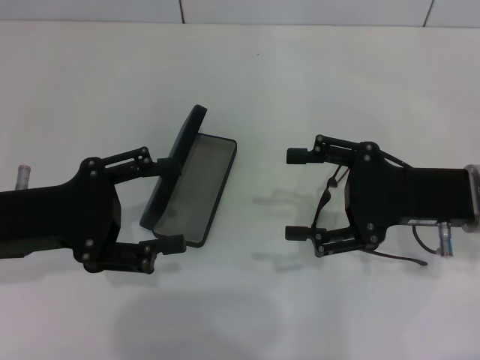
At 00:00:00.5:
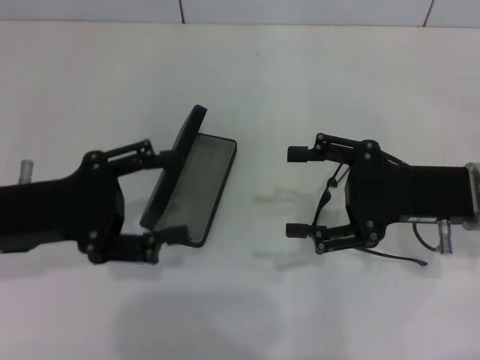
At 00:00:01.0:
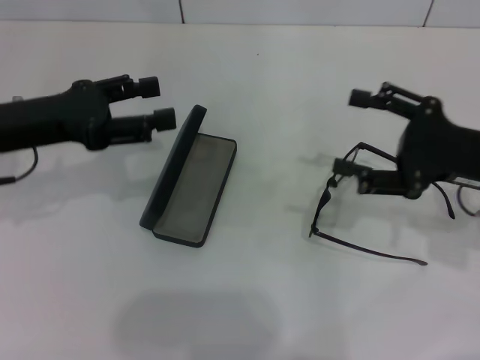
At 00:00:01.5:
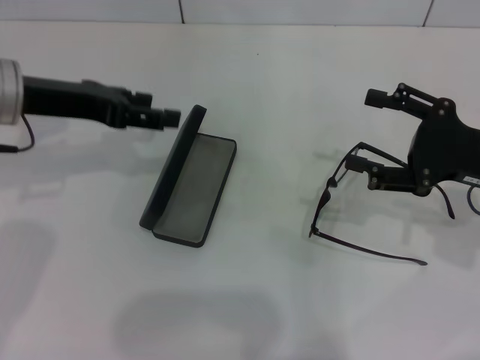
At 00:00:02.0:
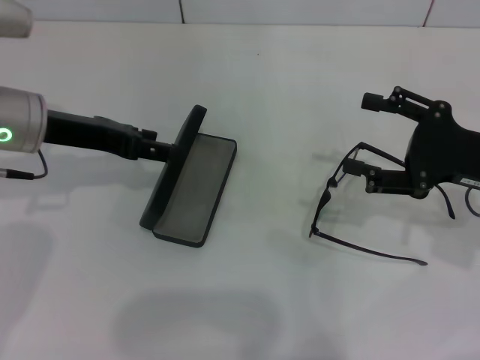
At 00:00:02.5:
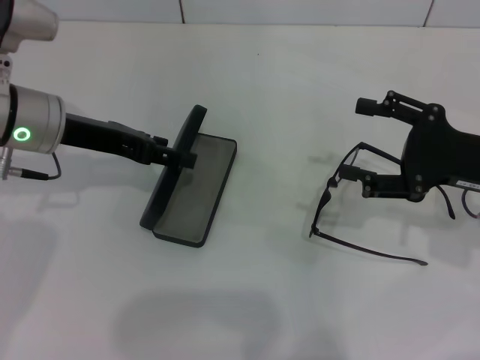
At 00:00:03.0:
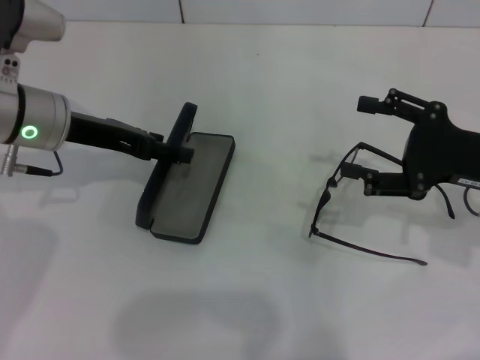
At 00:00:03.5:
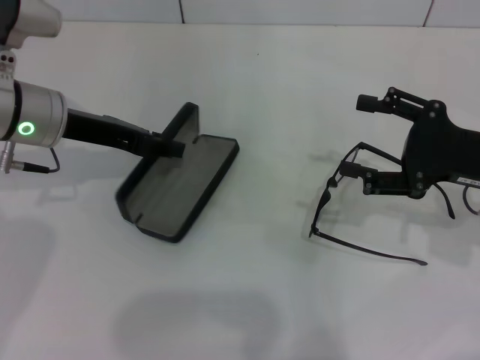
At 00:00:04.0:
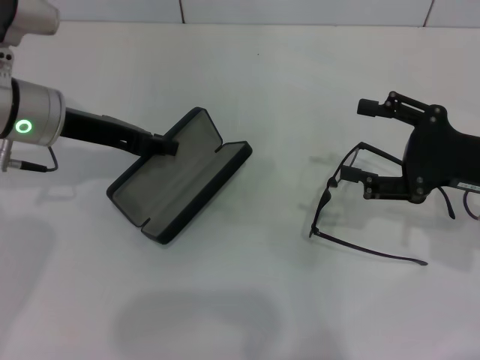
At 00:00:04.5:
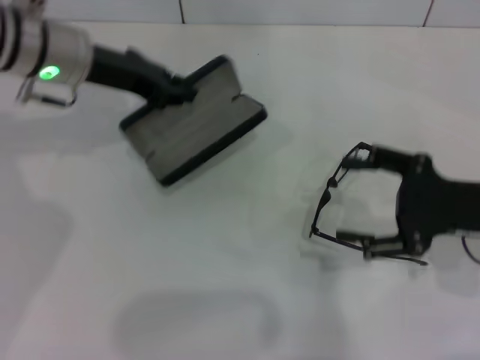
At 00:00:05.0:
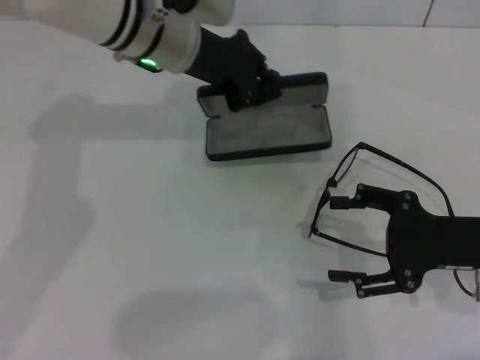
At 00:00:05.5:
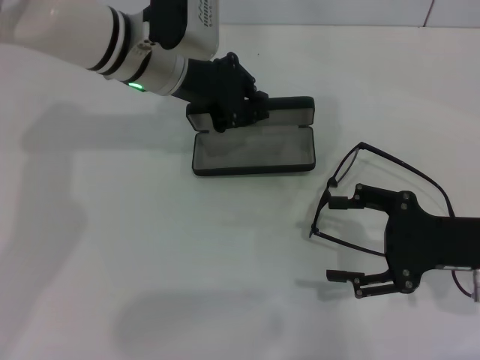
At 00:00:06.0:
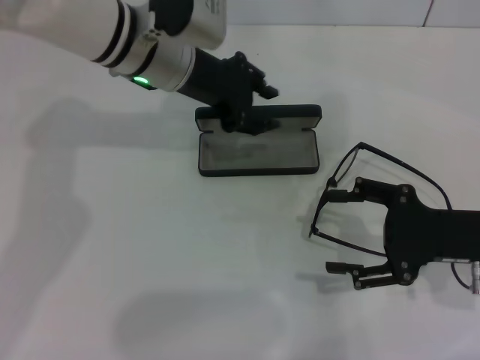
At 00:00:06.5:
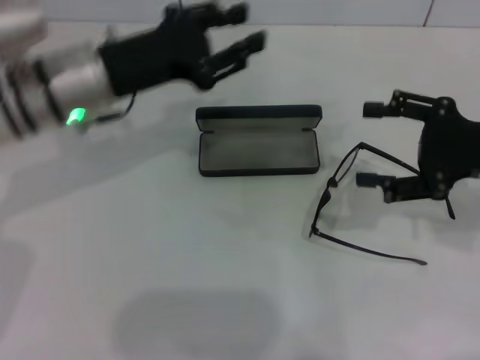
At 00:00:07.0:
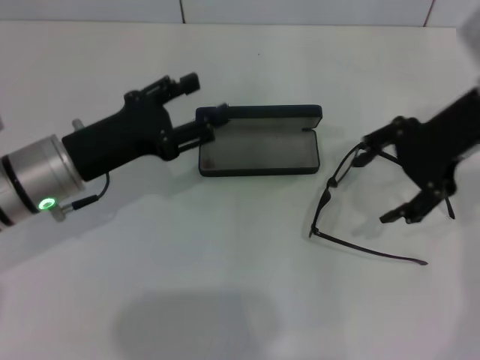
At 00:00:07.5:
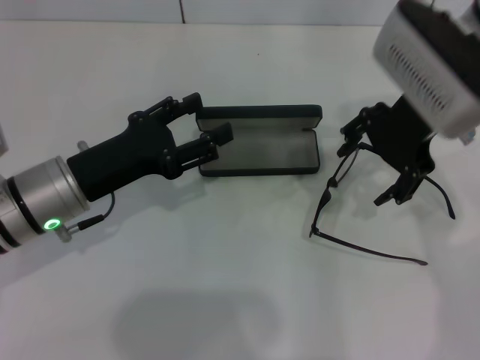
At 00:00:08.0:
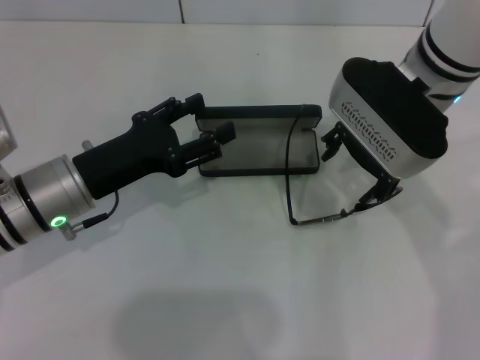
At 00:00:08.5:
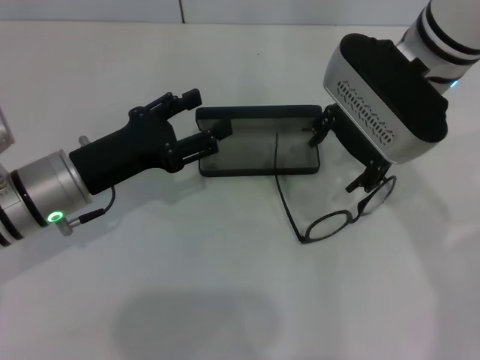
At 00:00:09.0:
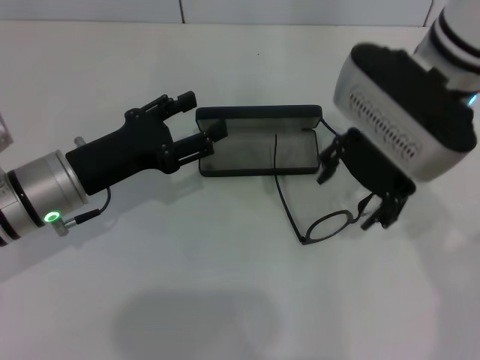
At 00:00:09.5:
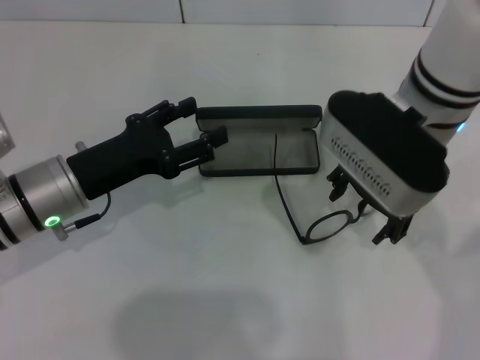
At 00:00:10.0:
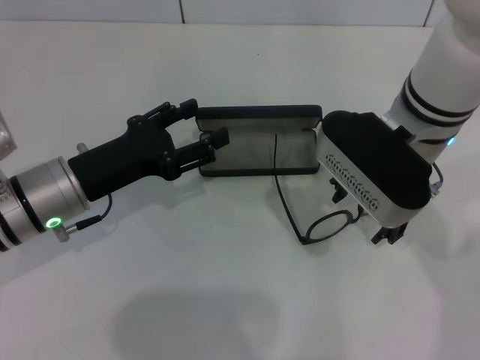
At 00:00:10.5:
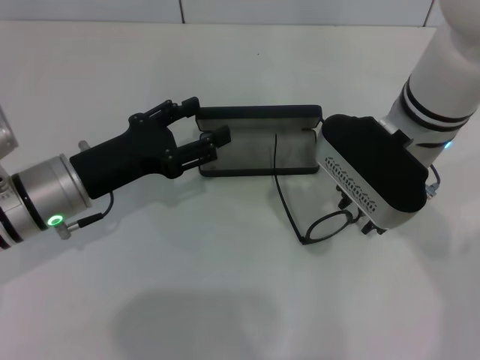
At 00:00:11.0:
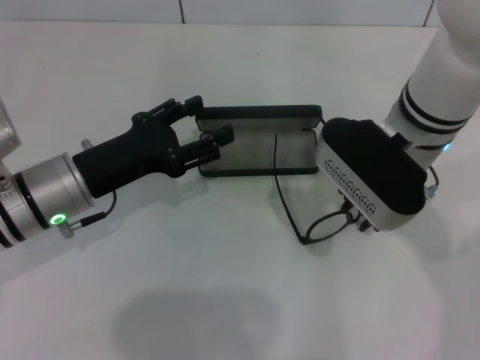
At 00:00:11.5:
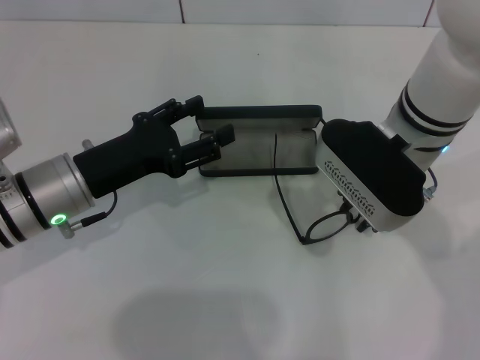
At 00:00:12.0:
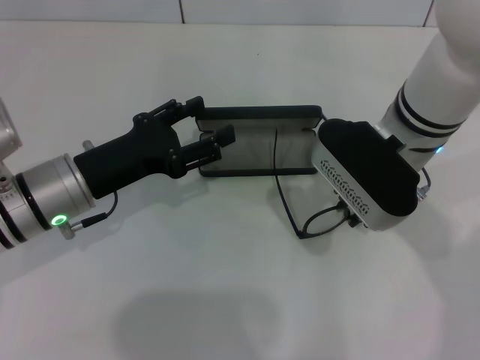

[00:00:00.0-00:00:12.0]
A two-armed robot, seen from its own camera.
Step, 00:00:00.0 to 00:00:03.5: Grab the glasses case with your left hand.
Step, 00:00:04.0 to 00:00:05.5: Place the glasses case in the center of the table with your left hand.
00:00:00.0 to 00:00:02.0: The left gripper is displaced forward by approximately 10 cm; the right gripper is displaced to the right by about 5 cm.
00:00:02.0 to 00:00:04.0: The left gripper closes its fingers.
00:00:04.0 to 00:00:06.0: The left gripper goes about 10 cm to the right.
00:00:06.0 to 00:00:08.0: The left gripper moves backward, to the left and downward, some 20 cm, and opens. The right gripper goes some 20 cm to the left, forward and upward.
00:00:08.0 to 00:00:10.0: The grippers make only small movements.
00:00:10.0 to 00:00:12.0: The right gripper closes its fingers.

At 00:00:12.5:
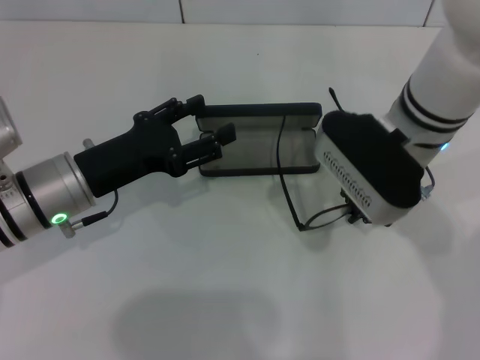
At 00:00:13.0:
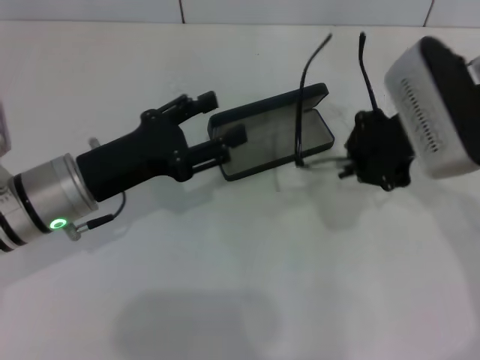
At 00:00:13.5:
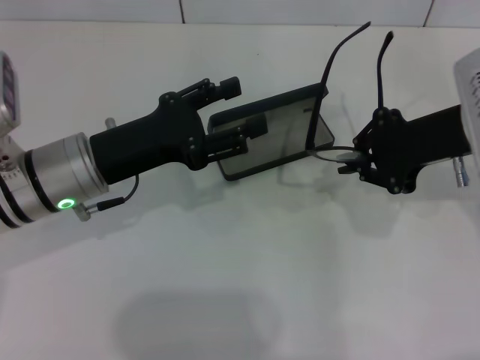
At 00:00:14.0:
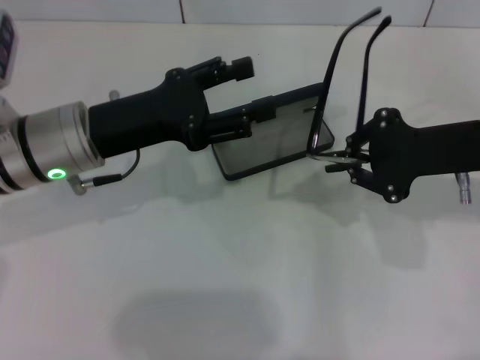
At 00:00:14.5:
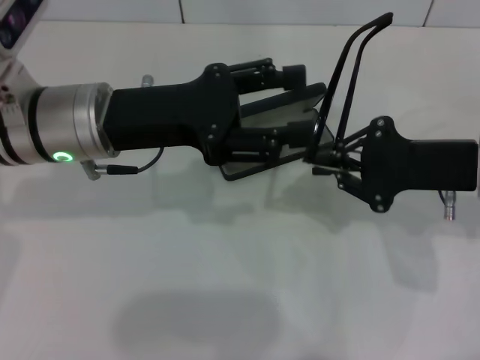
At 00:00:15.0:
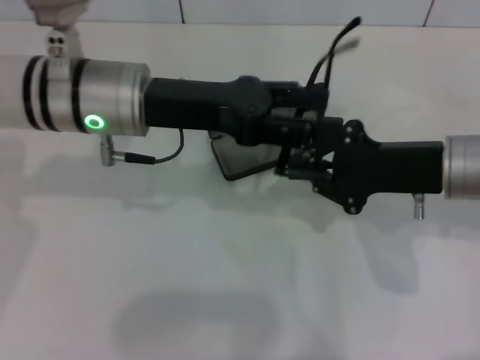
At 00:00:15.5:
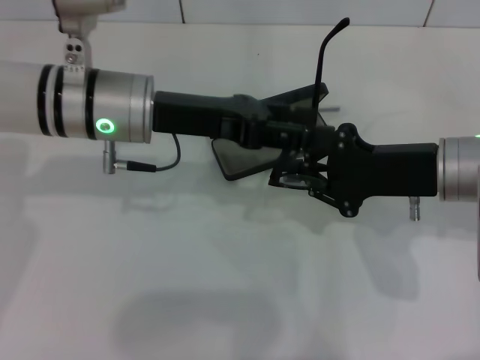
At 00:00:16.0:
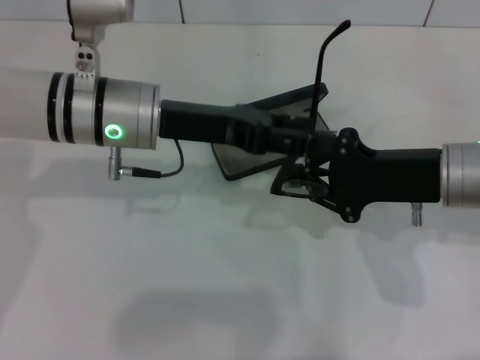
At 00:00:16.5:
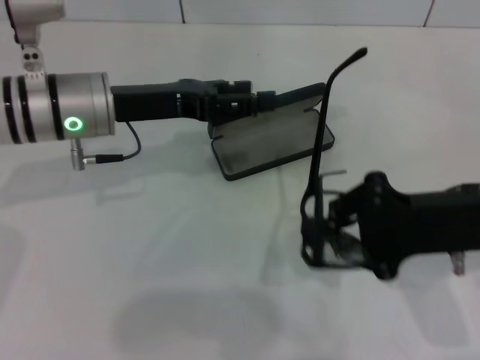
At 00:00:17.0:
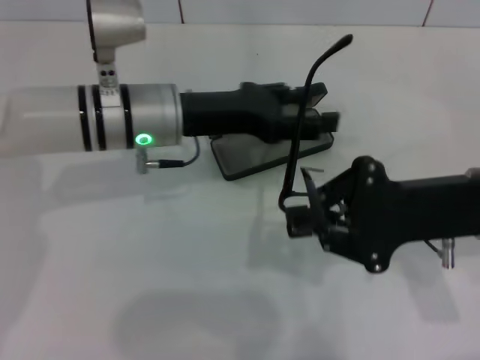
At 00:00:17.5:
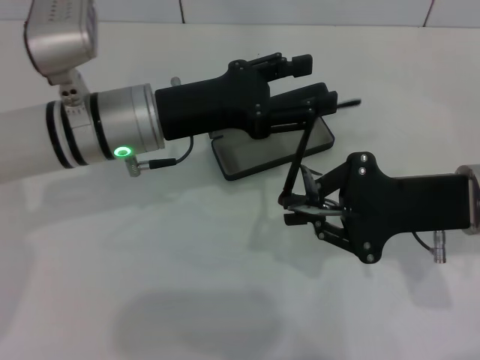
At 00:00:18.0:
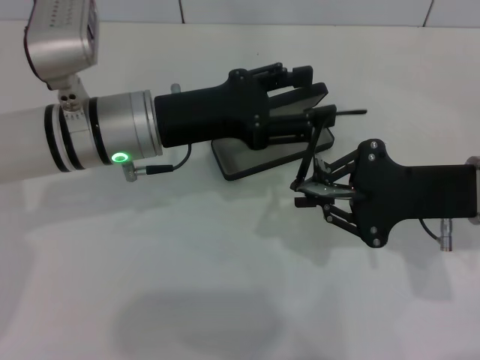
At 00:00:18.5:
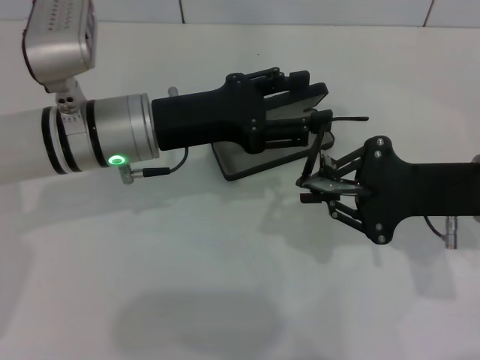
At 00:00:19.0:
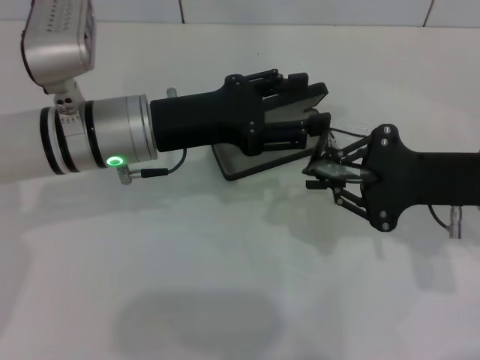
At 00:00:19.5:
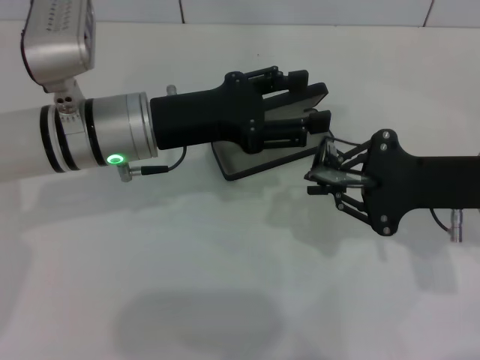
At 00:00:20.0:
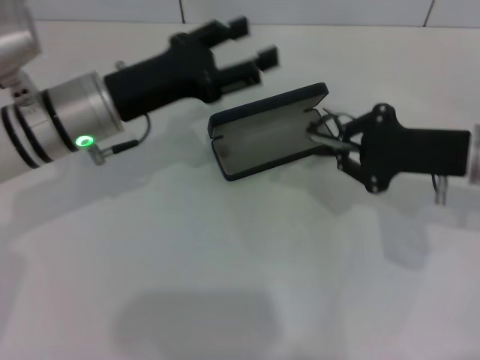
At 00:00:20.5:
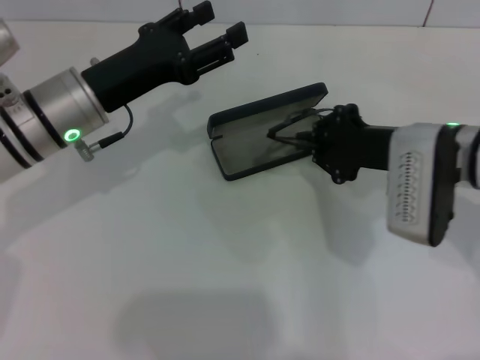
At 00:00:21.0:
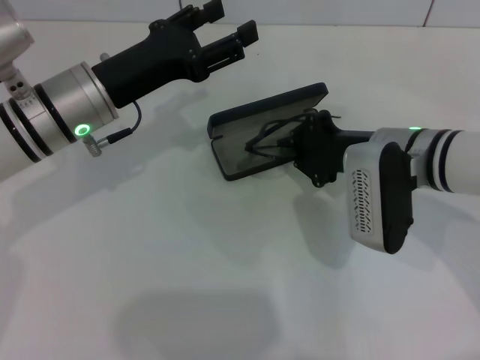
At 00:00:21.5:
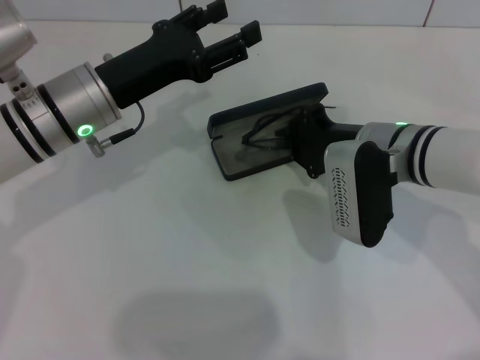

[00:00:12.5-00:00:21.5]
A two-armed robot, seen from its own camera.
Step, 00:00:12.5 to 00:00:19.5: Fold the frame with your left hand.
00:00:12.5 to 00:00:14.5: The right gripper shifts some 10 cm to the right. Meanwhile the left gripper travels upward by about 10 cm.
00:00:14.5 to 00:00:17.0: The left gripper moves about 5 cm.
00:00:19.5 to 00:00:21.5: The right gripper is displaced to the left and forward by some 10 cm.

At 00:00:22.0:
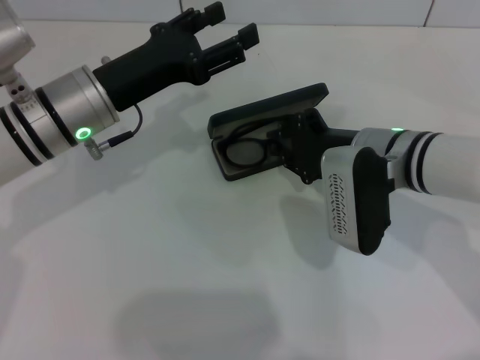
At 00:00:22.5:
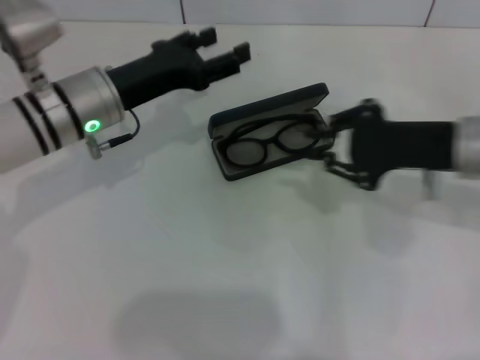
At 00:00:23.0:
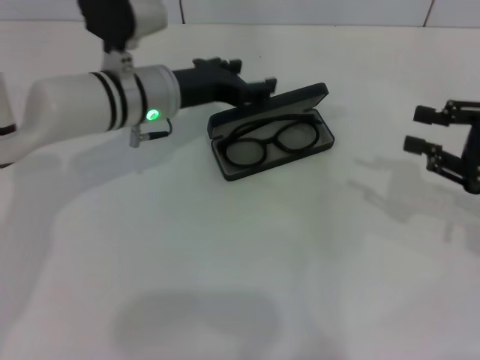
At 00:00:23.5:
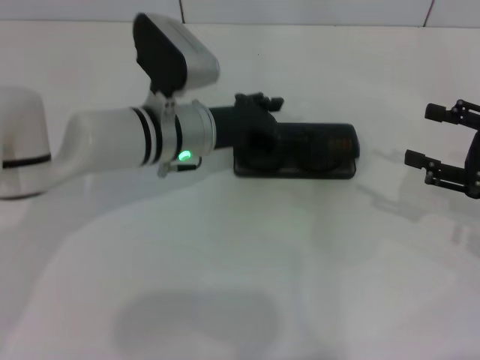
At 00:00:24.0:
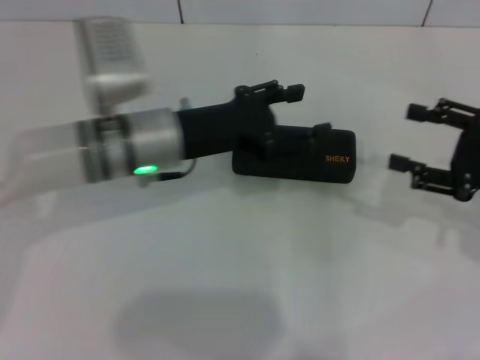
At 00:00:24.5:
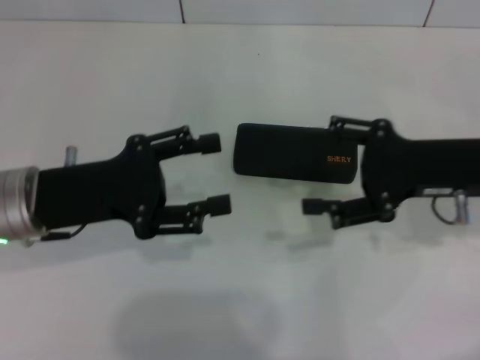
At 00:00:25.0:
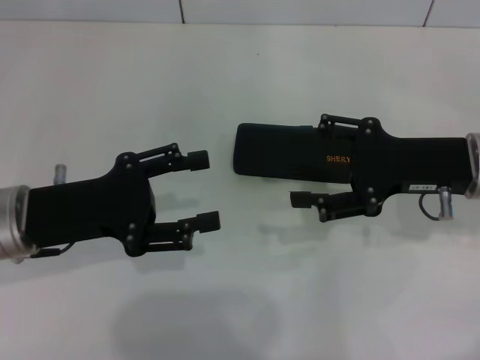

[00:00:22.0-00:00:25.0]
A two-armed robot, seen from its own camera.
Step, 00:00:22.5 to 00:00:23.5: Close the glasses case with your left hand.
00:00:22.0 to 00:00:23.5: The right gripper heads to the right, covering approximately 20 cm, and opens up, while the left gripper is displaced to the right by roughly 10 cm.
00:00:23.5 to 00:00:25.0: The right gripper travels to the left by some 10 cm. The left gripper goes roughly 20 cm to the left and backward.
